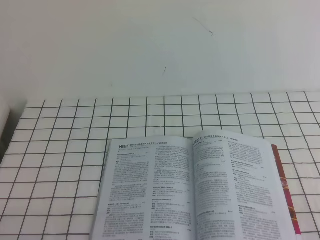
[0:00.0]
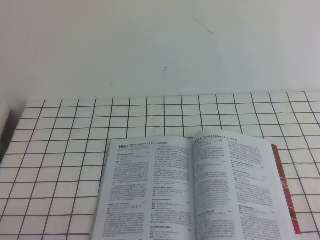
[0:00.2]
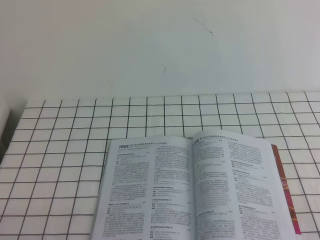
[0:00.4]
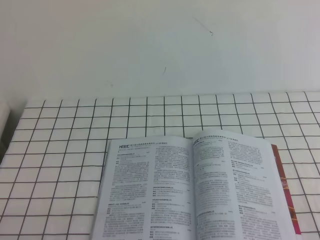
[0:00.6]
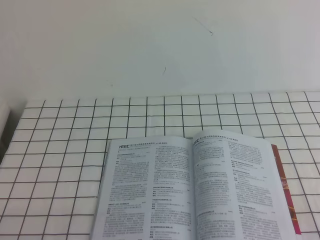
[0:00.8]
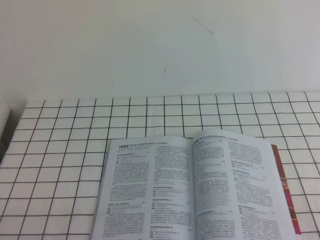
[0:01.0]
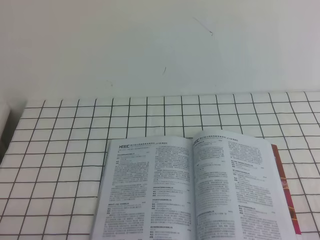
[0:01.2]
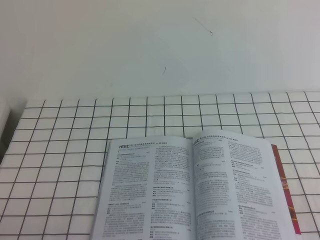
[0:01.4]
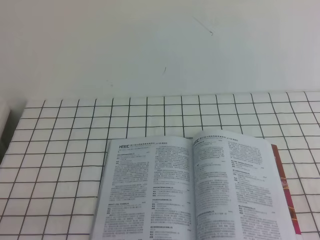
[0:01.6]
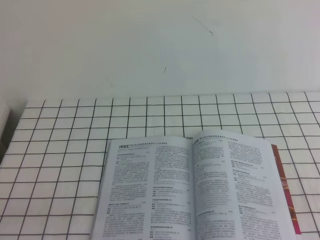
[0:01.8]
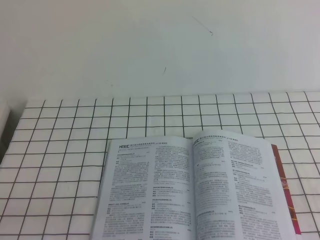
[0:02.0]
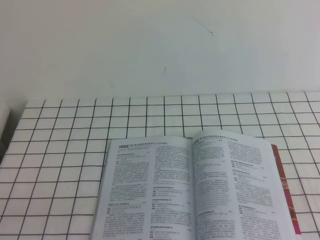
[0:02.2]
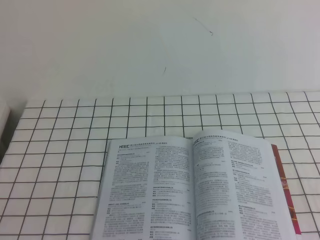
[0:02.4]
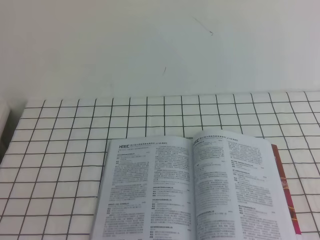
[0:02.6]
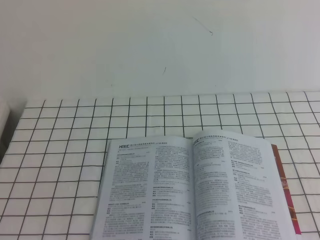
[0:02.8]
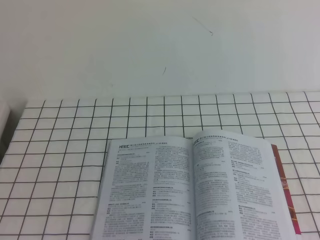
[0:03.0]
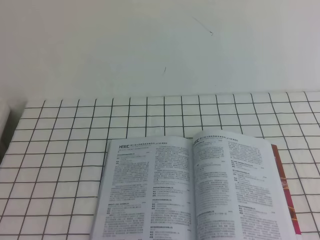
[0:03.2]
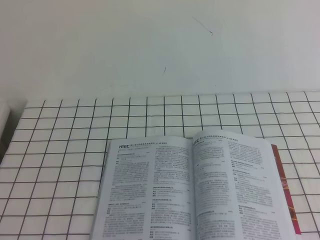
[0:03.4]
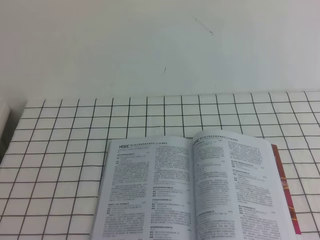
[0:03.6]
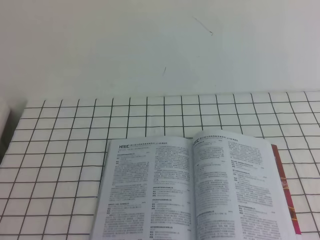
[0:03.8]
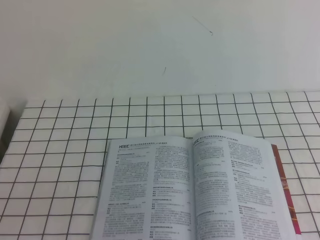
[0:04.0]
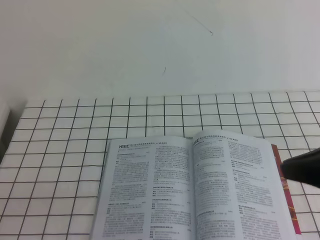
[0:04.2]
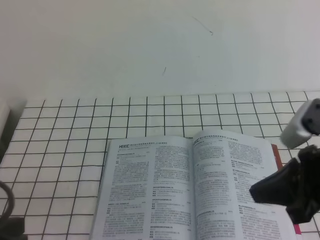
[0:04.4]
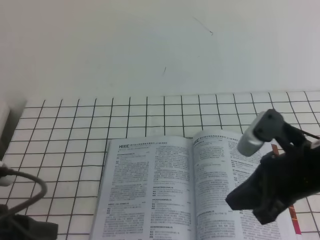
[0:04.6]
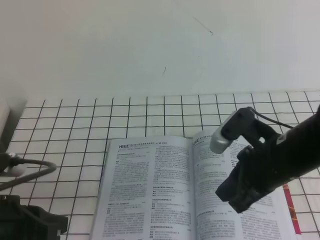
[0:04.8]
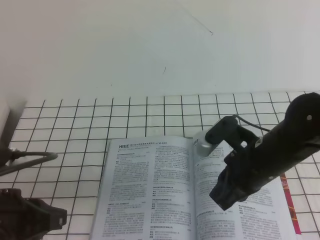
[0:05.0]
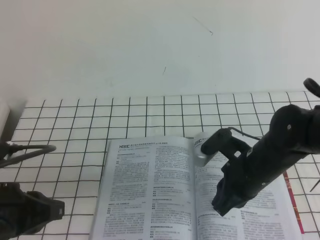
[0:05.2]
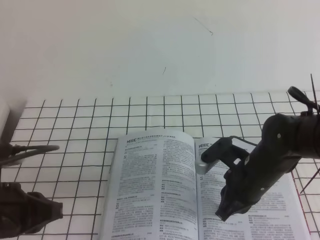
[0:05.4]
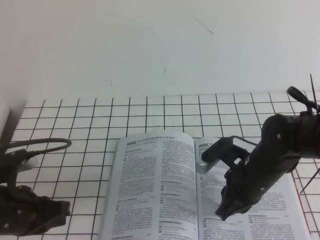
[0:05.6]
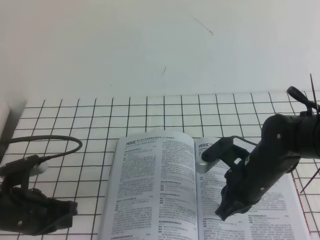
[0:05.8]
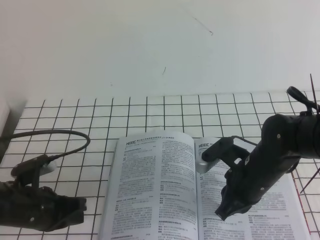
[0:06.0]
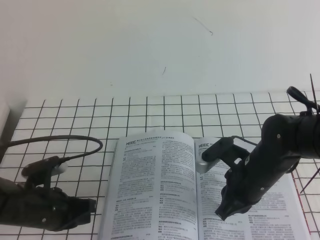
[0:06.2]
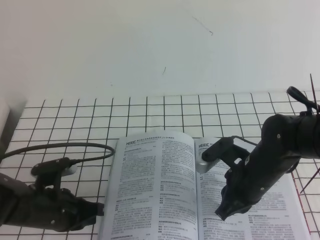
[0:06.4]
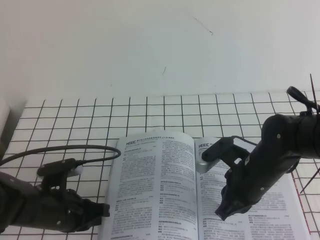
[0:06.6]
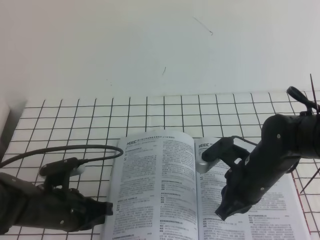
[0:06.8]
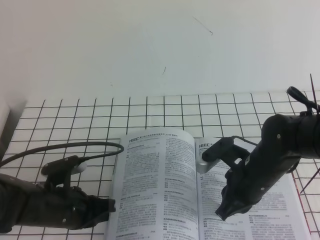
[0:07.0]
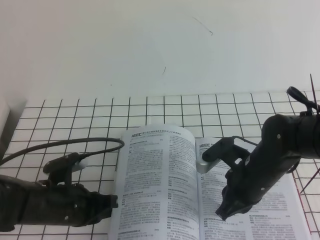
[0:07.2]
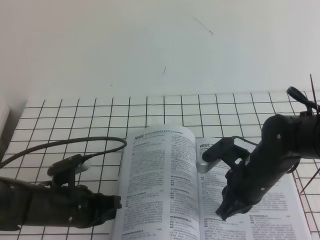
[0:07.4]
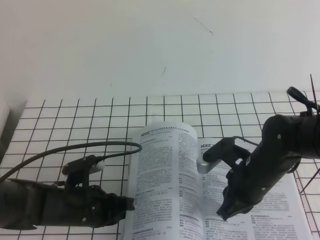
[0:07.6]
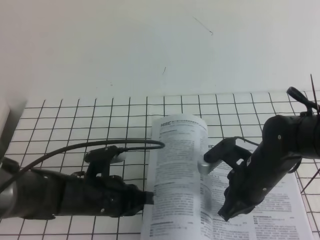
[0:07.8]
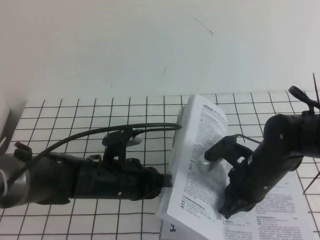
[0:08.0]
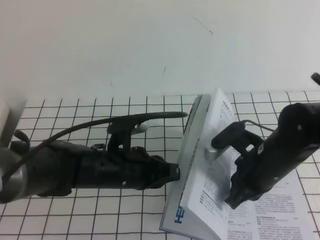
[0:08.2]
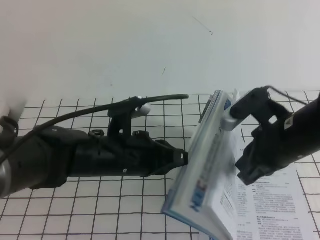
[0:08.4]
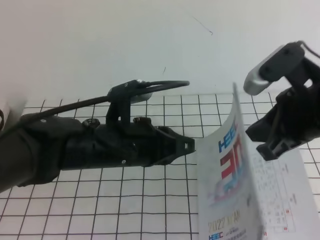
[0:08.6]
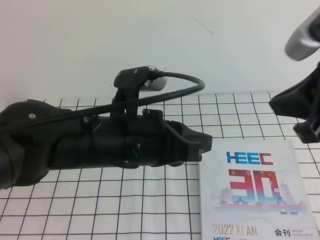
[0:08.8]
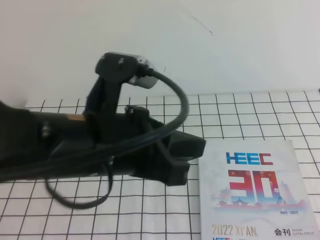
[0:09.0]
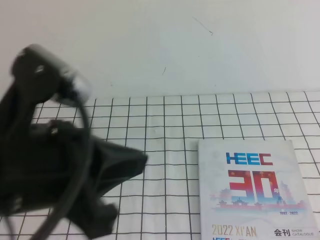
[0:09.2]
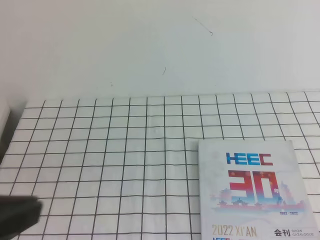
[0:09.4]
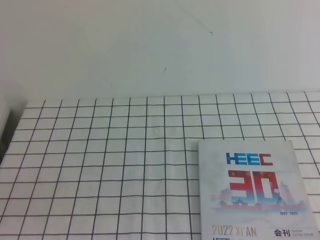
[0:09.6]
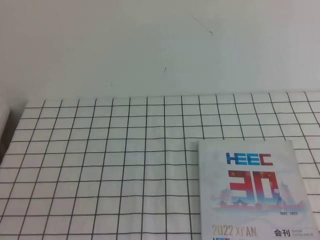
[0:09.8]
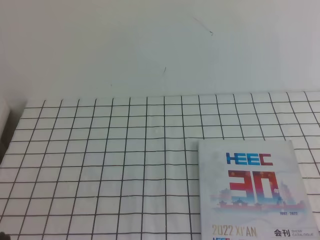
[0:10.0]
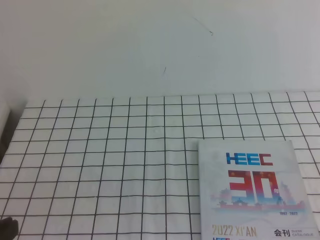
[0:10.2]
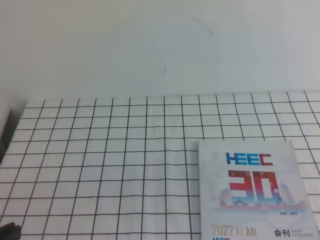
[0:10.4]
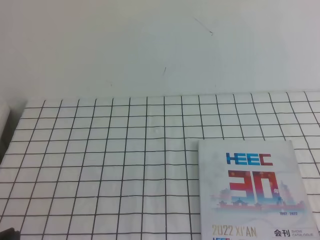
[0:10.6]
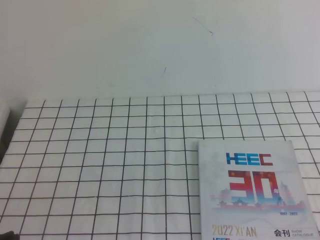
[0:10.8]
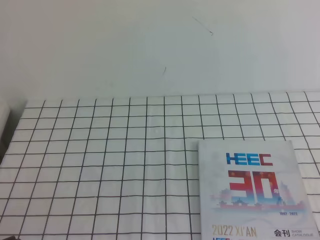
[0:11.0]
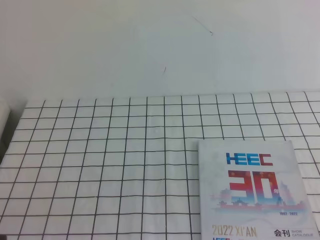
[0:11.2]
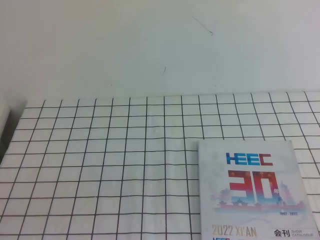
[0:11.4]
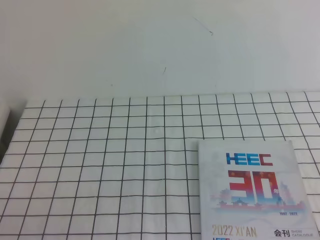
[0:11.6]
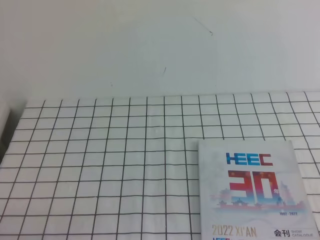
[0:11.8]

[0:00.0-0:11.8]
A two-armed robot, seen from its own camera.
Task of the whole recording: on the white tablecloth, hold the book with one hand and close it with the other.
0:03.0 to 0:04.4: The right gripper shifts about 30 cm forward, downward and to the left, while the left gripper shifts approximately 15 cm forward and downward.
0:04.4 to 0:06.0: The right gripper travels downward, forward and to the left by approximately 20 cm. Meanwhile the left gripper is displaced forward and downward by some 20 cm.
0:06.0 to 0:07.4: The left gripper heads to the right, covering about 5 cm.
0:07.4 to 0:08.8: The right gripper moves upward, about 25 cm. The left gripper travels upward and to the right by about 20 cm.
0:08.8 to 0:10.4: The right gripper heads backward, to the right and downward, covering approximately 20 cm, while the left gripper goes approximately 25 cm backward and to the left.

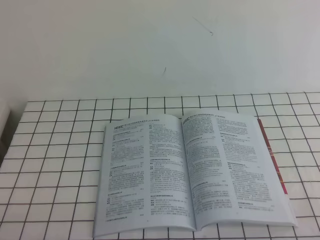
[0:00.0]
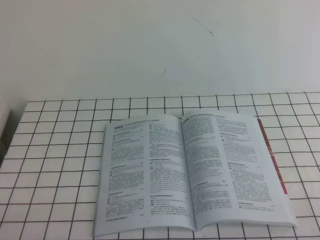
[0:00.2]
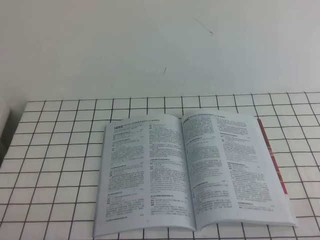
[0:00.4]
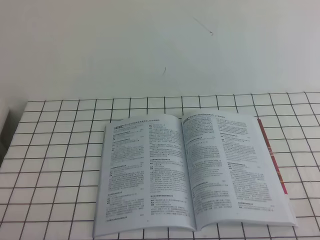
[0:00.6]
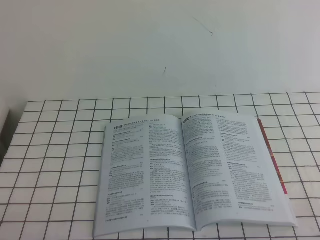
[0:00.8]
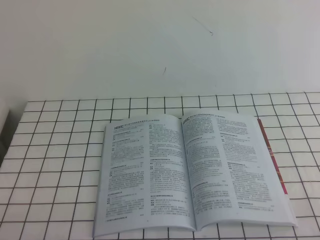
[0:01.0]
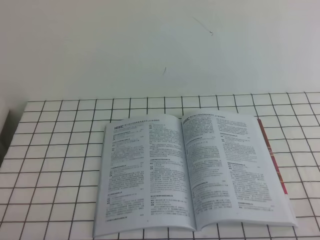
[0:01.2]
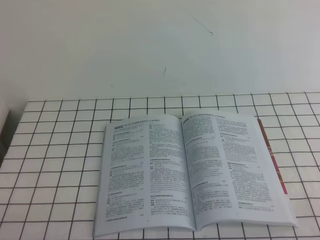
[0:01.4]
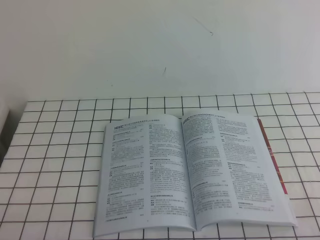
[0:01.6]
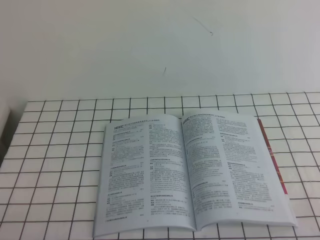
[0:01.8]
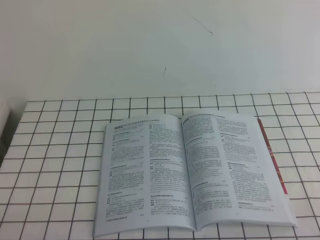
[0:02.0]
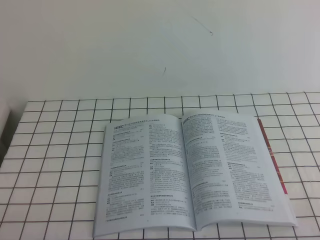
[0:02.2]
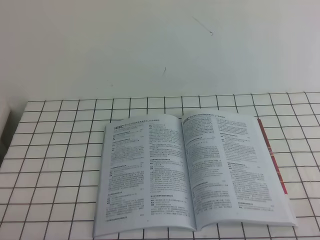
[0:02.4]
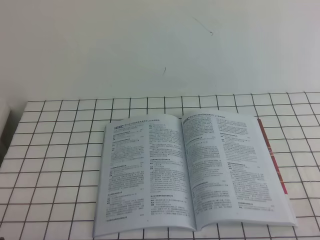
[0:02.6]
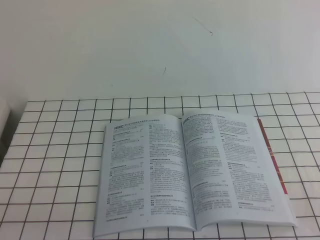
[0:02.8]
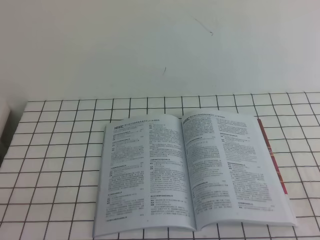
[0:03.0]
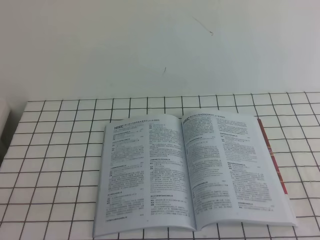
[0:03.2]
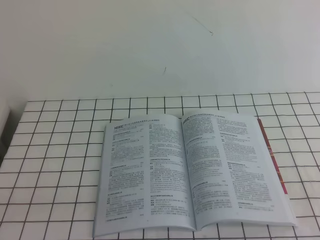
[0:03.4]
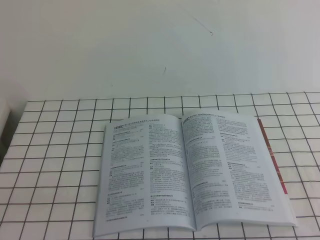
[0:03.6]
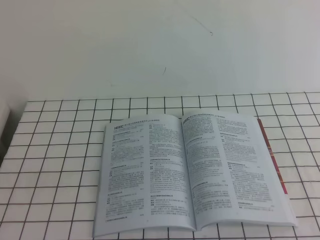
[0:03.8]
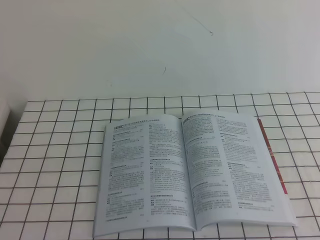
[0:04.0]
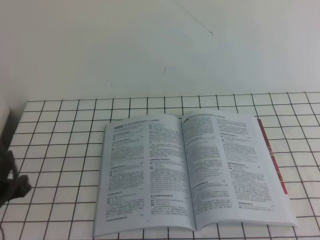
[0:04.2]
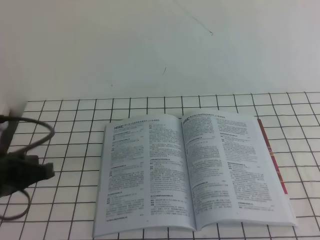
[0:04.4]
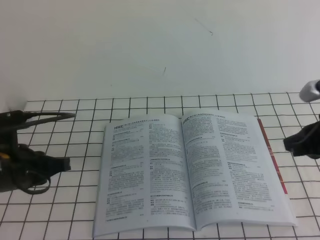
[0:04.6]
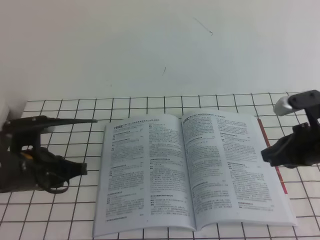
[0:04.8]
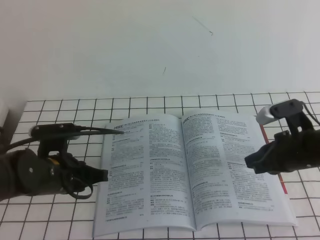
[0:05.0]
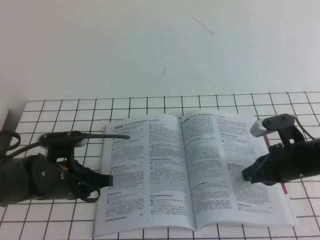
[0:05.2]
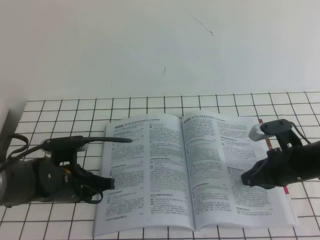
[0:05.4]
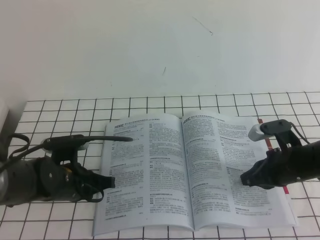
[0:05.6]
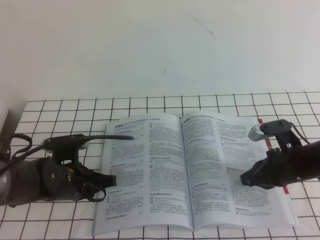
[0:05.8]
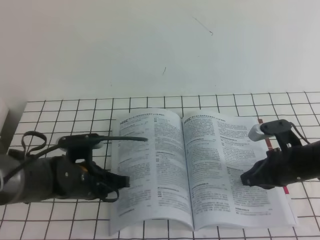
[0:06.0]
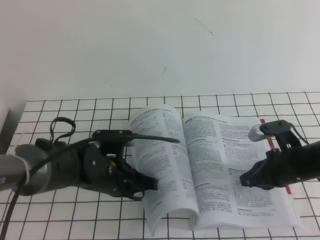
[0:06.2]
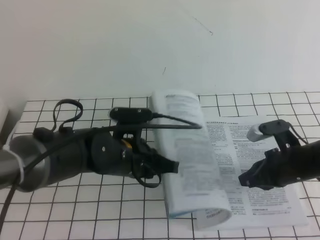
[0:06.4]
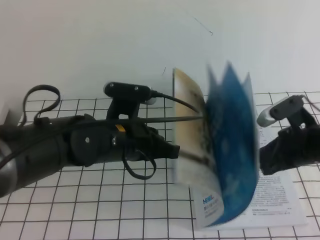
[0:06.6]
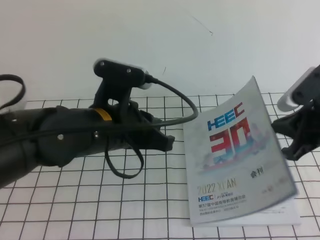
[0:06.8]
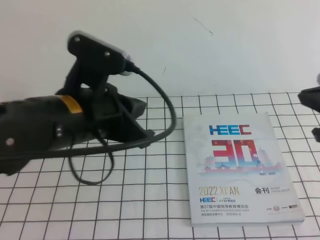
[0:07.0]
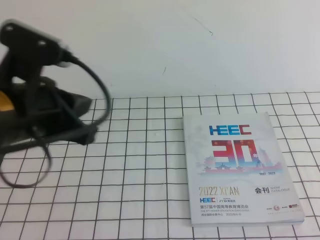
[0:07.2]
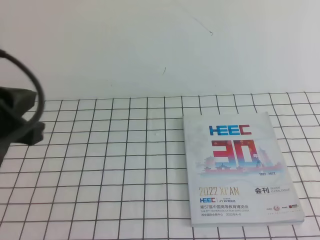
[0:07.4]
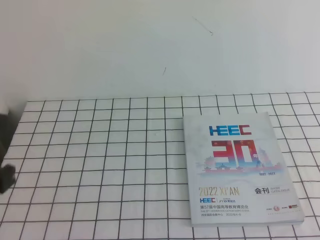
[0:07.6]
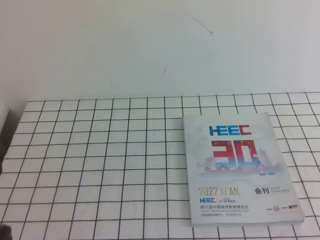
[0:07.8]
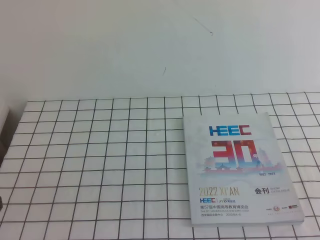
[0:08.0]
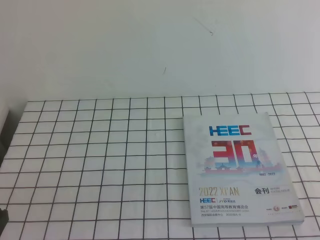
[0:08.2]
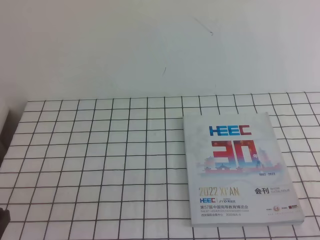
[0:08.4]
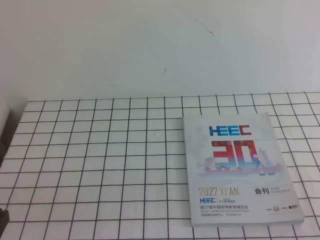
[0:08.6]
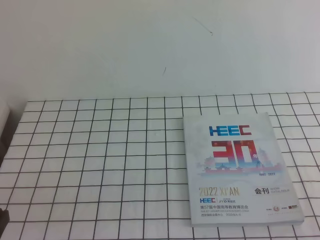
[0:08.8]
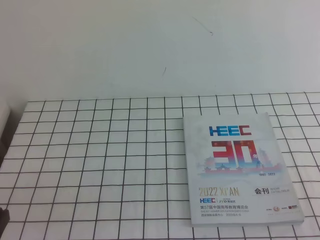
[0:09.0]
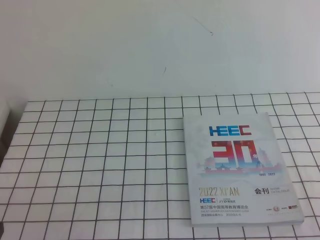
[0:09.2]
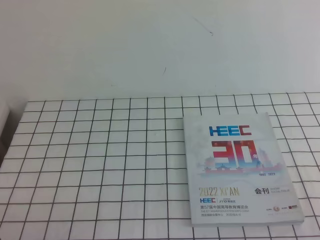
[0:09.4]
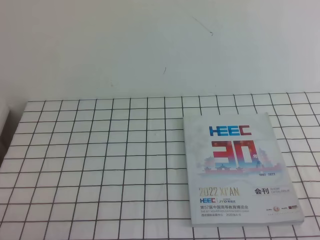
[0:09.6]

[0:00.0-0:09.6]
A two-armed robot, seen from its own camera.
Task of the whole recording: on the white tablecloth, hold the book with one hand and close it with the other.
0:00.0 to 0:01.6: Neither gripper changes place.
0:03.2 to 0:04.8: Both grippers travel together forward, about 25 cm.
0:04.8 to 0:06.4: The left gripper travels to the right by some 15 cm. The right gripper shifts approximately 5 cm downward.
0:06.4 to 0:08.0: The right gripper goes about 30 cm backward, upward and to the right. The left gripper moves backward, to the left and upward, roughly 30 cm.
